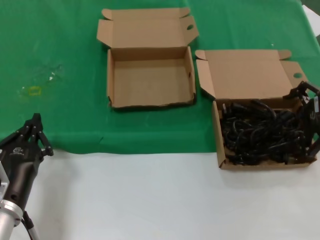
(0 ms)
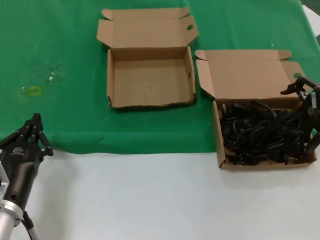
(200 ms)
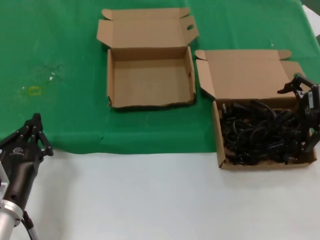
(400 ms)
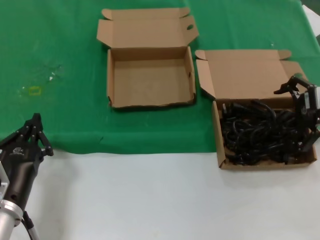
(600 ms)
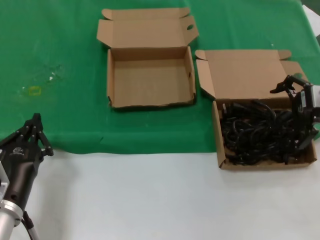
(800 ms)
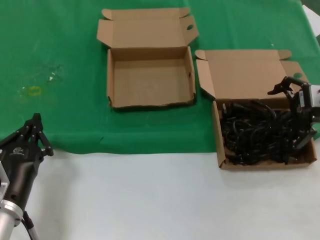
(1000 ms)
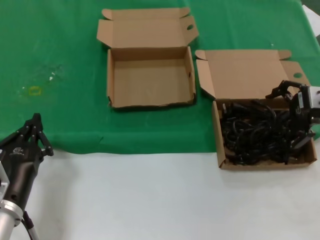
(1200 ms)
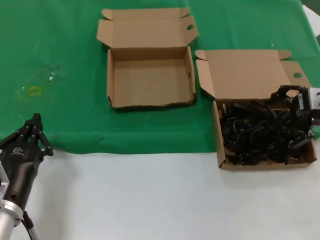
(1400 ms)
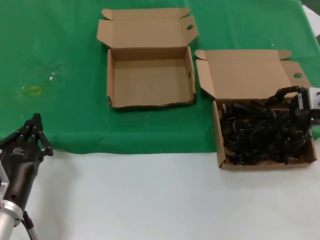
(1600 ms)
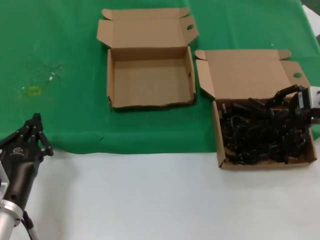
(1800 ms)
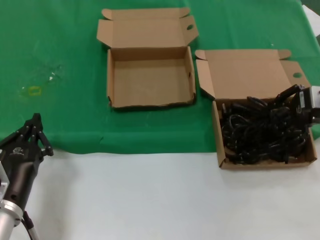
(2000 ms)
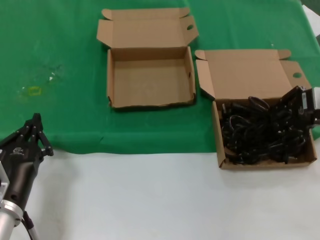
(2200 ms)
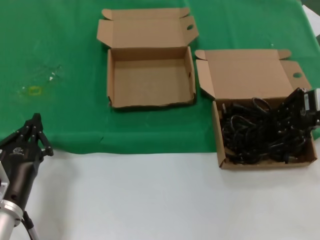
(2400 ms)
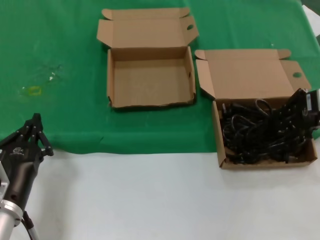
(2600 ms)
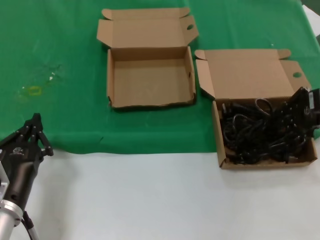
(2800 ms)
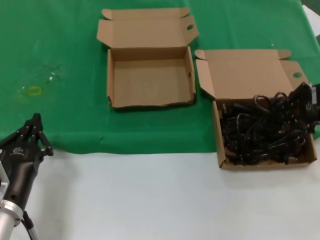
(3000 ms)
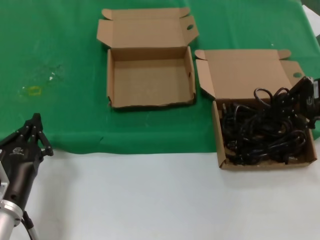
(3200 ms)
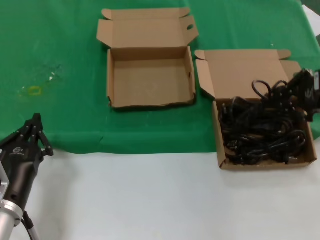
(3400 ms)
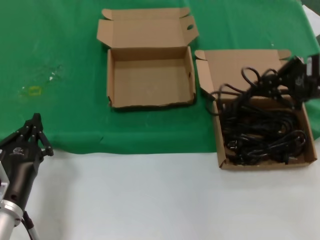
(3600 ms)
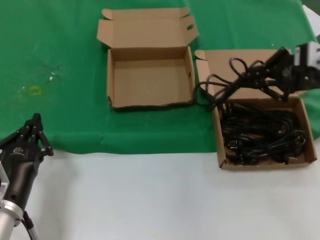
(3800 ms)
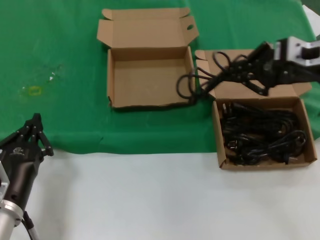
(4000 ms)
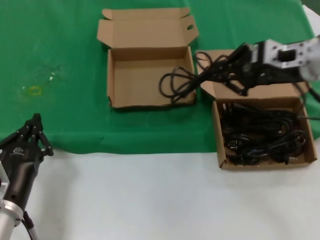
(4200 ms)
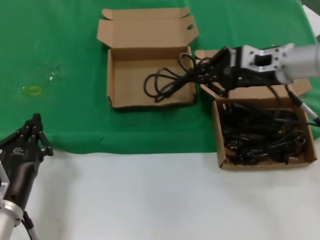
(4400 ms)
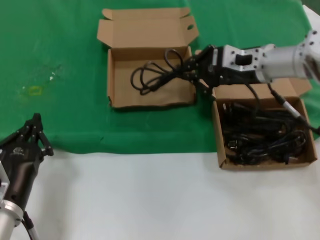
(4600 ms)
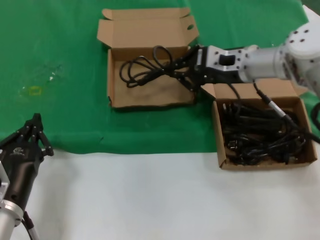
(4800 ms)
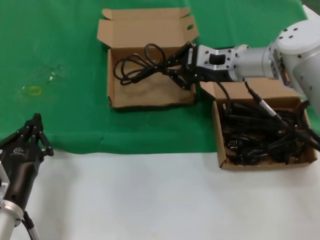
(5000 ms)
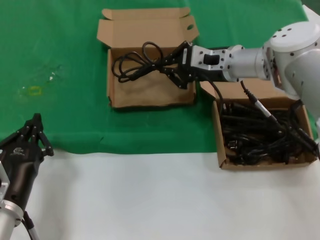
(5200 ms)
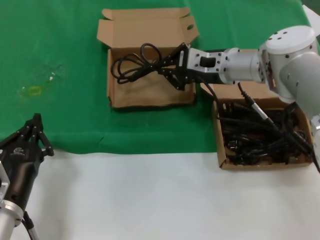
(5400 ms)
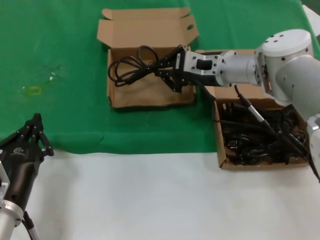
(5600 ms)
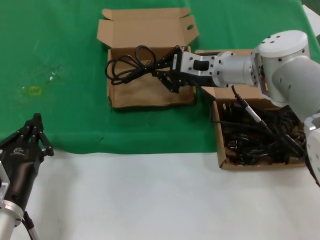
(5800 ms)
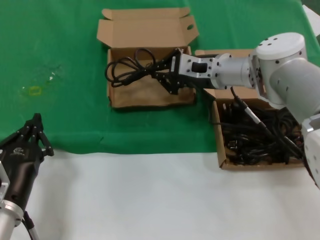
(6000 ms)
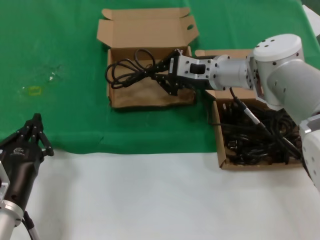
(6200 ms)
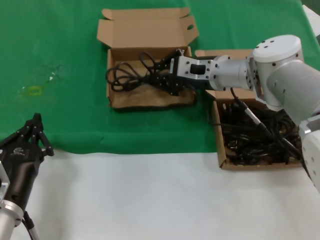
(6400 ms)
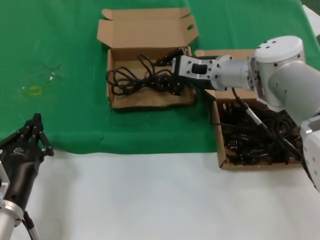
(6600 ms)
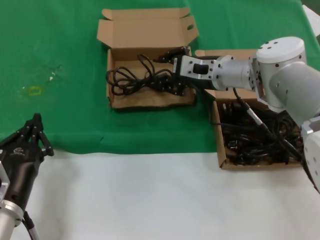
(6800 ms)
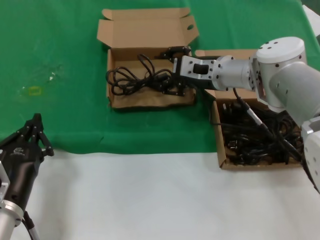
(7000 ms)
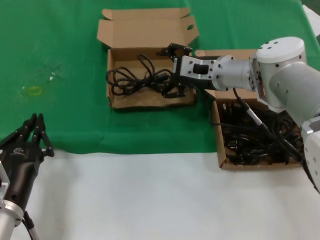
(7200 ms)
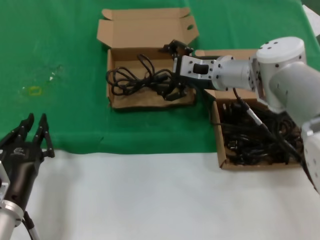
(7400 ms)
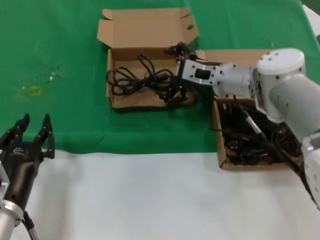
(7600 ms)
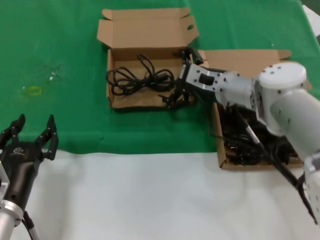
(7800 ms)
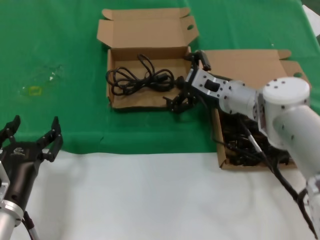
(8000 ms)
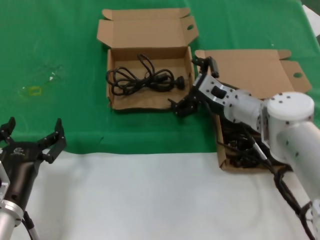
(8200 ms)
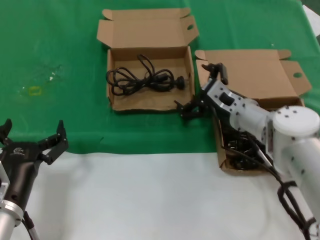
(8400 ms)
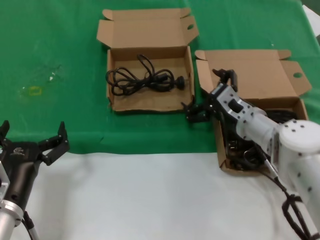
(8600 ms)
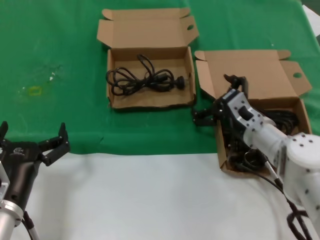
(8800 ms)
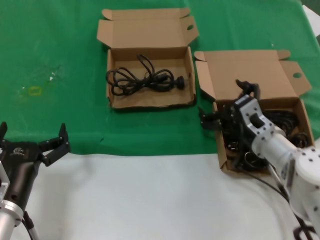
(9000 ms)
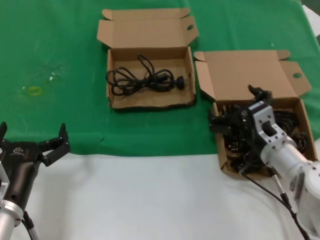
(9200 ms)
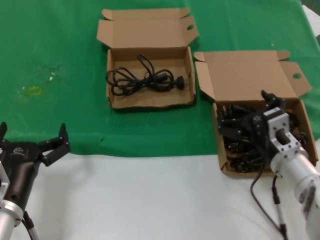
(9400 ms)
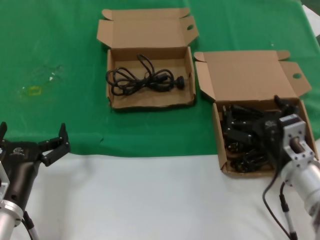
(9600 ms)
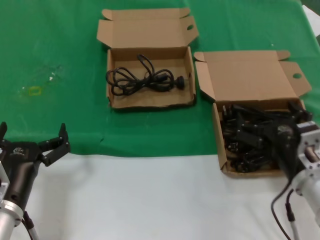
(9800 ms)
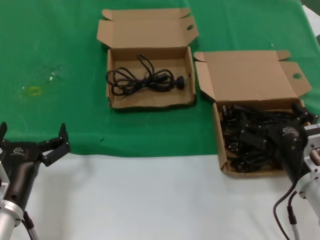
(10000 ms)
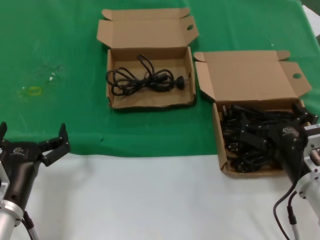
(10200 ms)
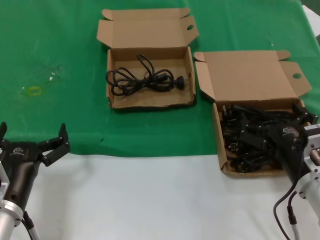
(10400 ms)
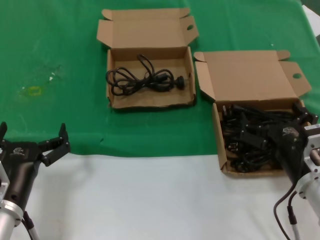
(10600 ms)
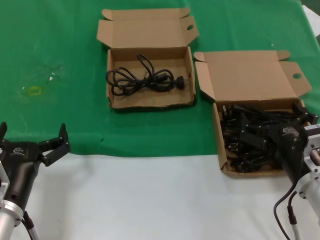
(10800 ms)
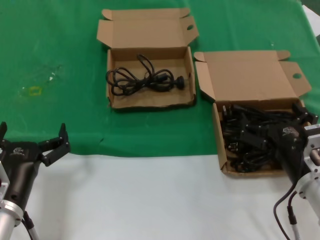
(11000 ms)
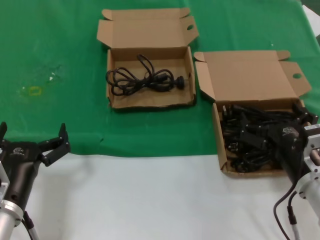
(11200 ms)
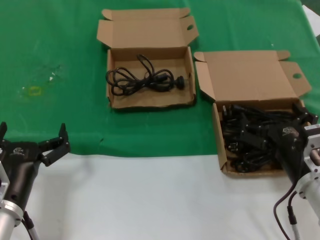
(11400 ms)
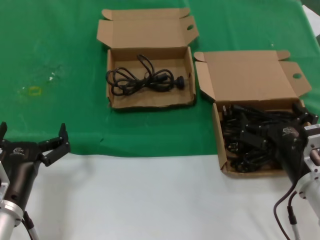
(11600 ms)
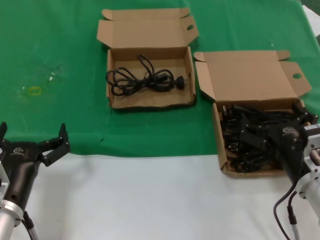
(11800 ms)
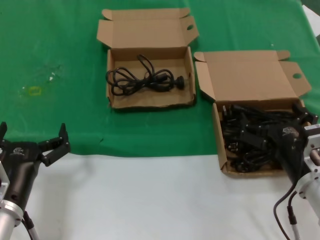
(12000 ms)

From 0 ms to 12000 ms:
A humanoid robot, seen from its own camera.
Task of the whole recording: take the parts from the box containing them and put them into an empty box.
Step, from 0 ms to 2200 ms: Grasp the data cable.
Step, from 2400 ms to 6600 ms: Place the data cable in the another box.
From 0 ms to 3000 ms: There are only small adjustments of the hands.
From 3000 ms to 4400 ms: The right hand shifts approximately 15 cm to the left and forward.
From 4400 ms to 6000 ms: The right hand travels to the left, forward and downward by approximately 15 cm.
From 6000 ms to 7600 ms: The hands move only a little.
From 7600 ms to 9000 ms: The right hand moves backward, downward and to the right, approximately 20 cm.
From 9000 ms to 10400 ms: The right hand heads backward, covering some 15 cm.
From 10400 ms to 12000 ms: Neither hand changes place.

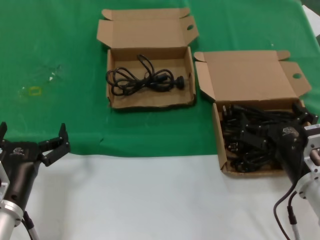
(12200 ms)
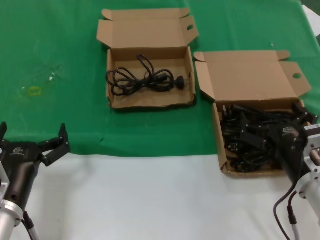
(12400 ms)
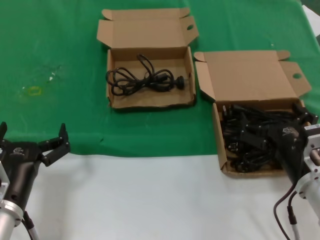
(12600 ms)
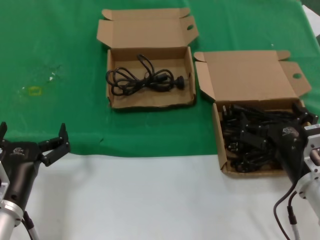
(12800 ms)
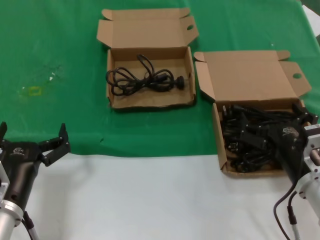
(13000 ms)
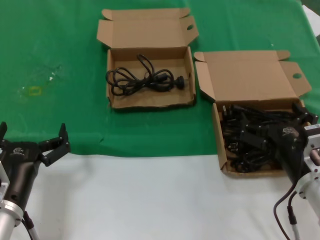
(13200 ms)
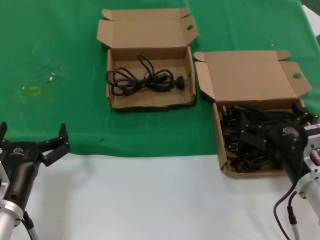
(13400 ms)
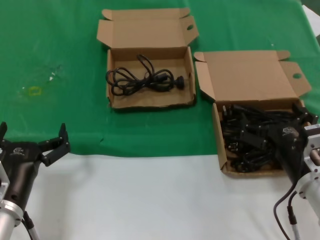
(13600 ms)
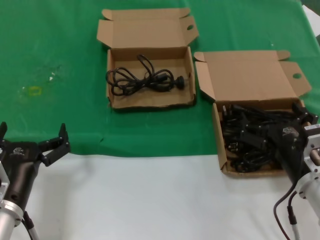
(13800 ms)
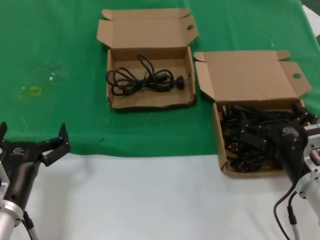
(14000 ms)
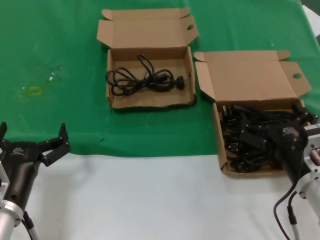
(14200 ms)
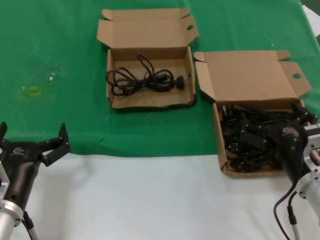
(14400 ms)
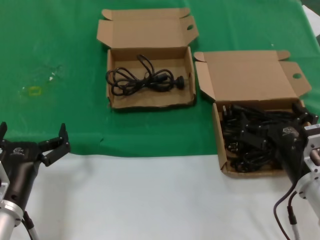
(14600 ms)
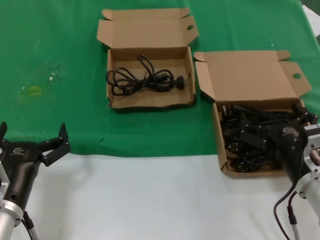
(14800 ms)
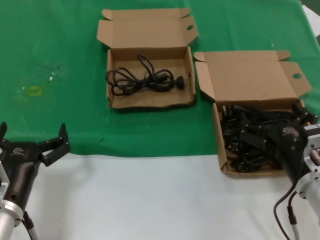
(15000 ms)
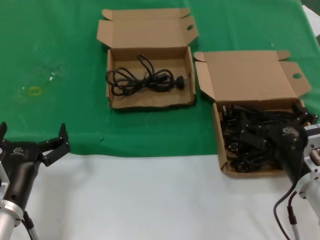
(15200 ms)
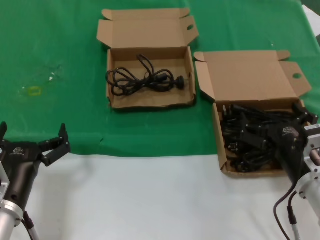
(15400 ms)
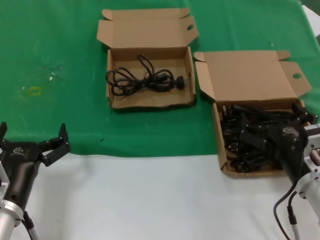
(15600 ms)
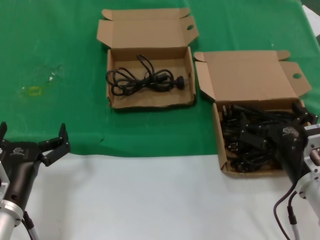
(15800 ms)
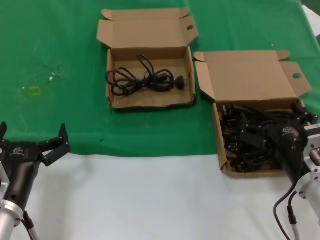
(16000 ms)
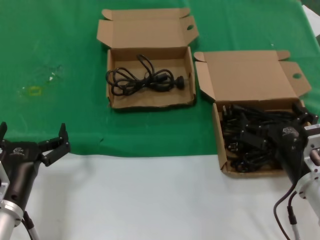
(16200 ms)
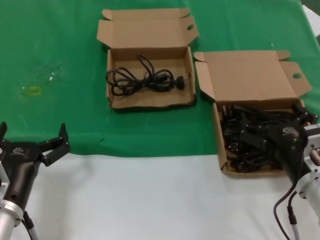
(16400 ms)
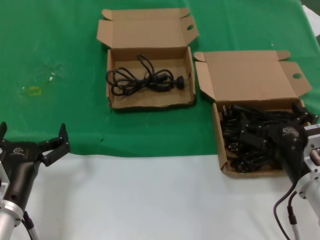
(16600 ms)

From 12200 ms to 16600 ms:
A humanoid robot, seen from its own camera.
Task of the whole recording: take the parts from the box containing them and put them into an empty box.
From 12200 ms to 16600 ms: Both hands stay put.
